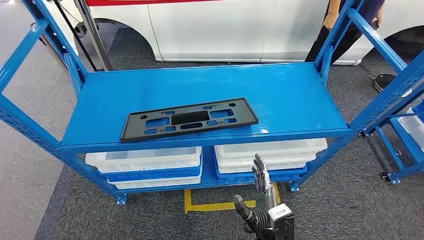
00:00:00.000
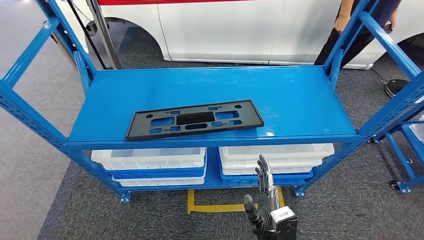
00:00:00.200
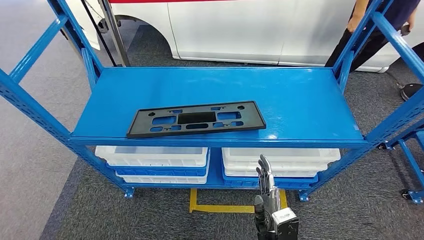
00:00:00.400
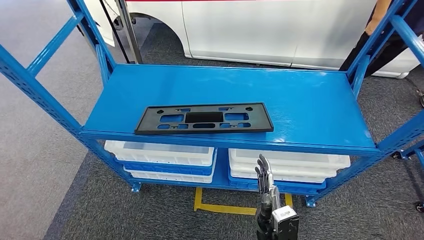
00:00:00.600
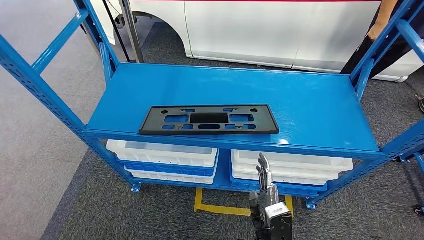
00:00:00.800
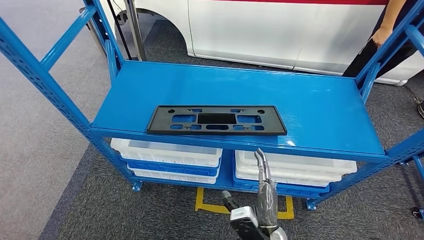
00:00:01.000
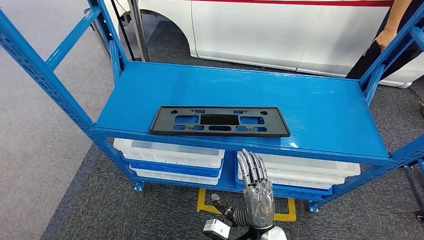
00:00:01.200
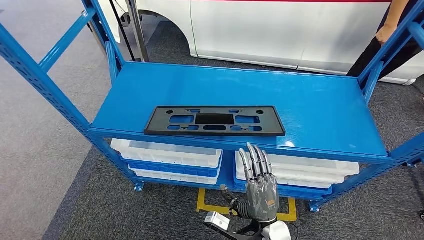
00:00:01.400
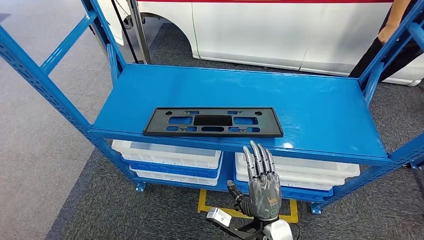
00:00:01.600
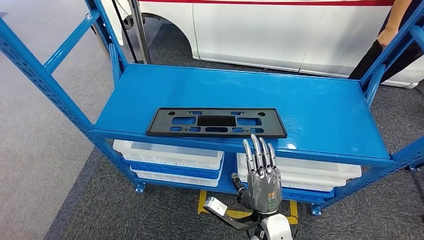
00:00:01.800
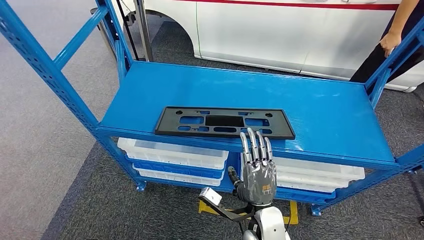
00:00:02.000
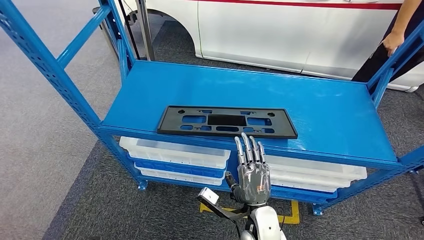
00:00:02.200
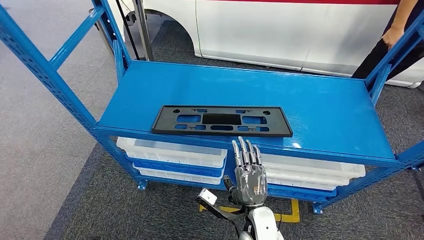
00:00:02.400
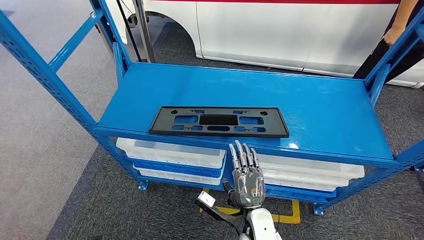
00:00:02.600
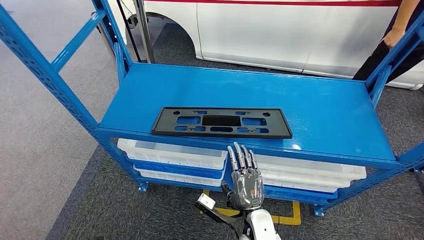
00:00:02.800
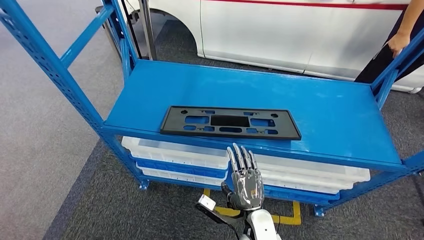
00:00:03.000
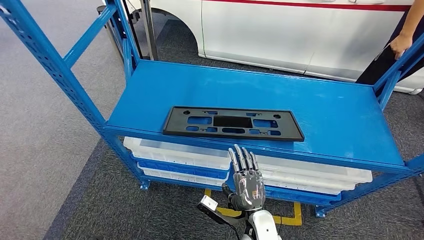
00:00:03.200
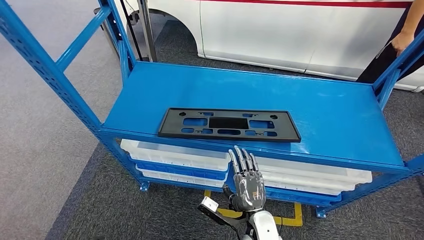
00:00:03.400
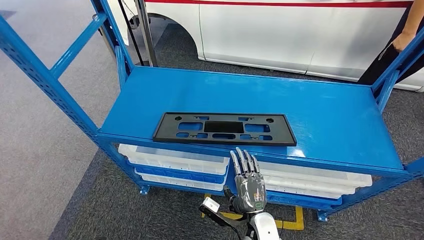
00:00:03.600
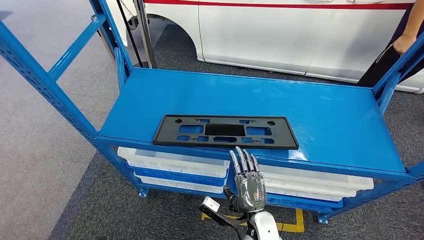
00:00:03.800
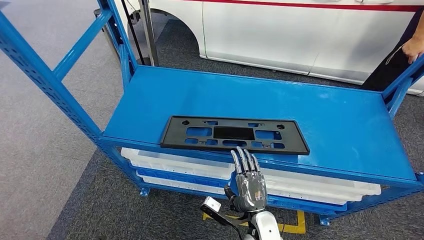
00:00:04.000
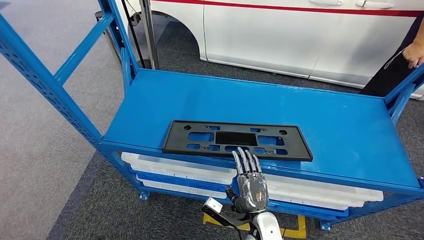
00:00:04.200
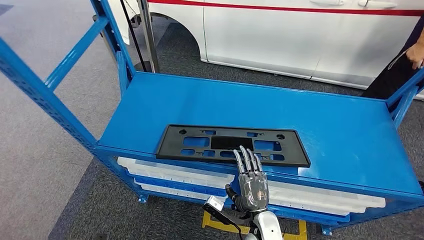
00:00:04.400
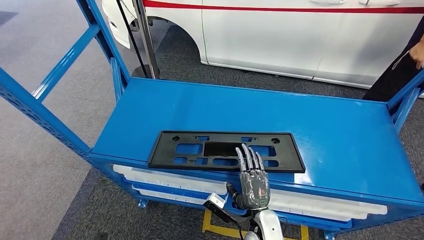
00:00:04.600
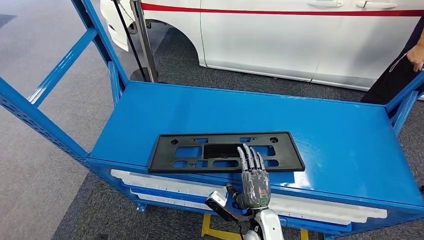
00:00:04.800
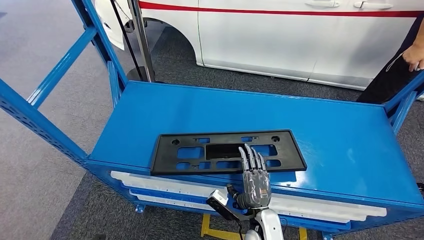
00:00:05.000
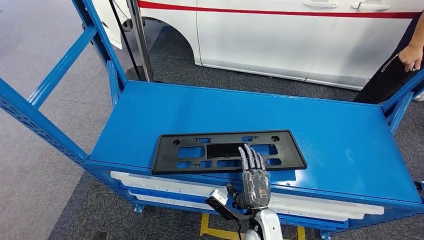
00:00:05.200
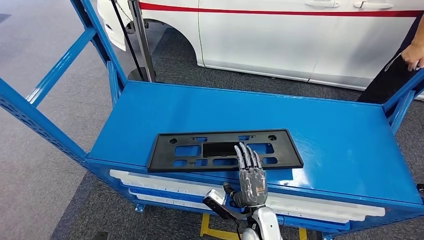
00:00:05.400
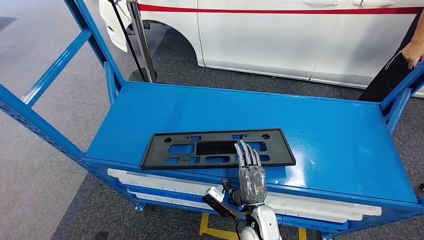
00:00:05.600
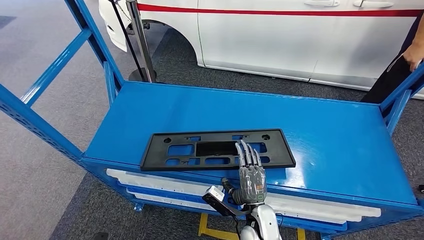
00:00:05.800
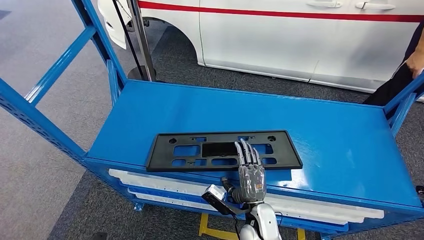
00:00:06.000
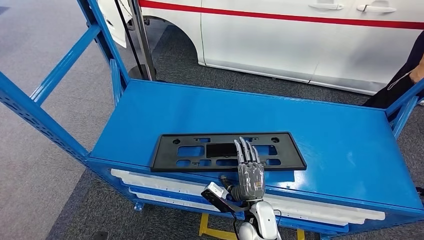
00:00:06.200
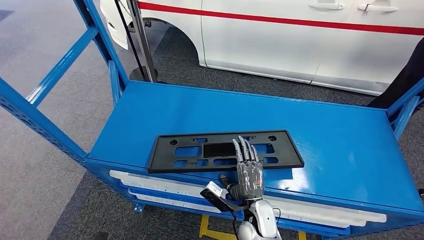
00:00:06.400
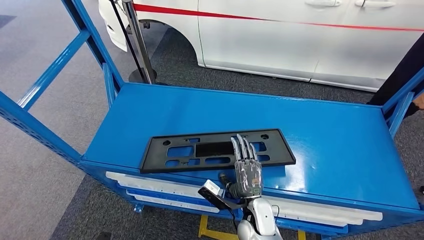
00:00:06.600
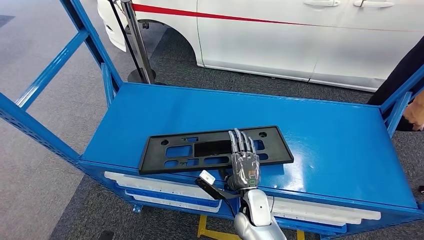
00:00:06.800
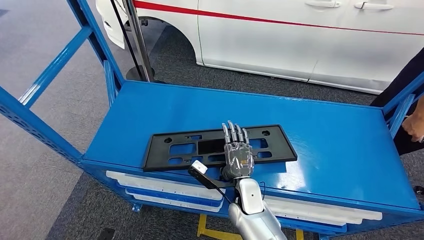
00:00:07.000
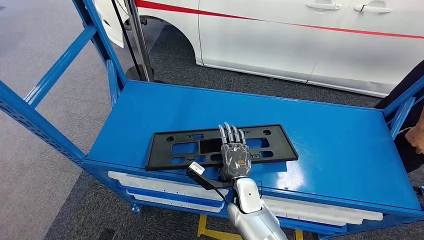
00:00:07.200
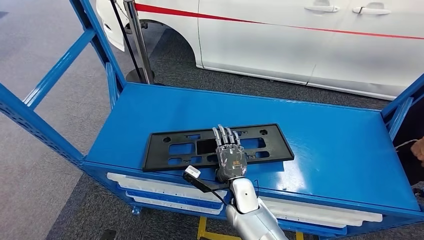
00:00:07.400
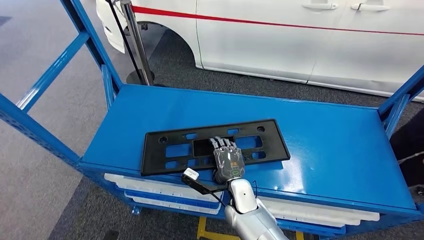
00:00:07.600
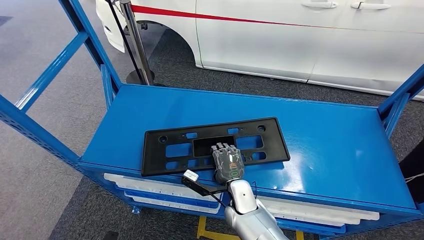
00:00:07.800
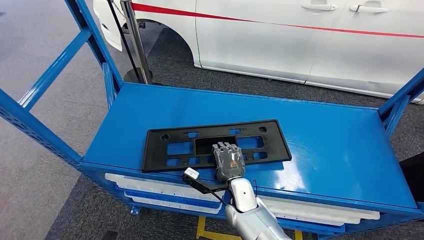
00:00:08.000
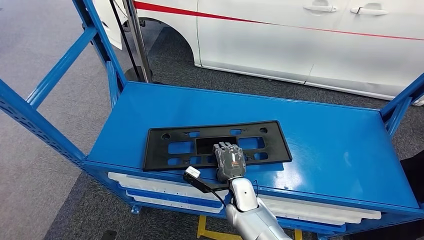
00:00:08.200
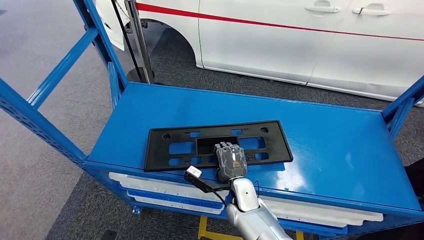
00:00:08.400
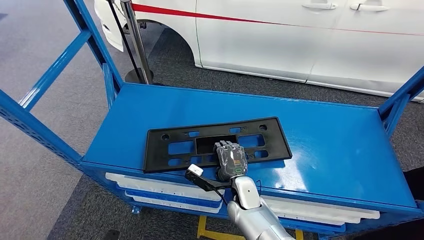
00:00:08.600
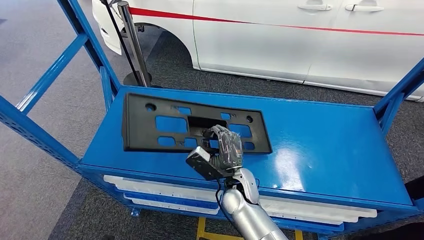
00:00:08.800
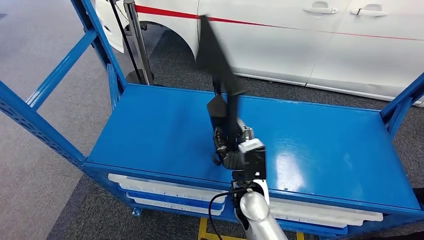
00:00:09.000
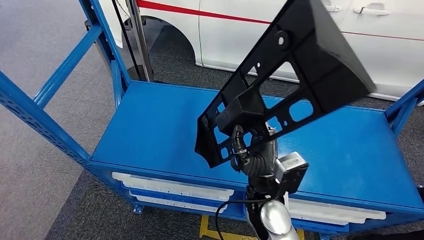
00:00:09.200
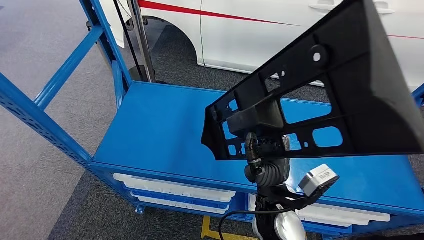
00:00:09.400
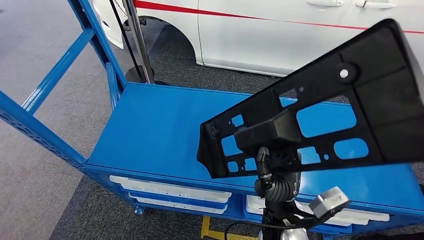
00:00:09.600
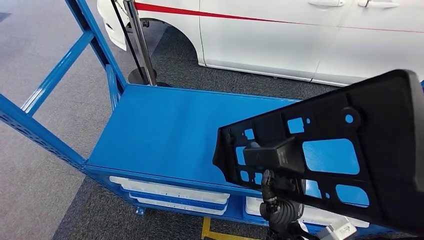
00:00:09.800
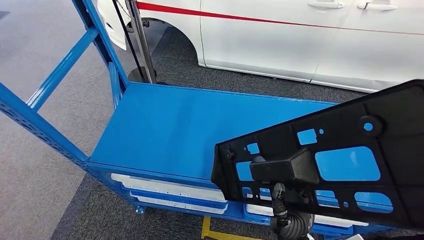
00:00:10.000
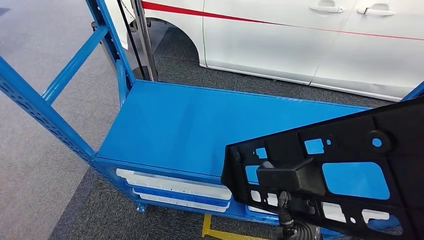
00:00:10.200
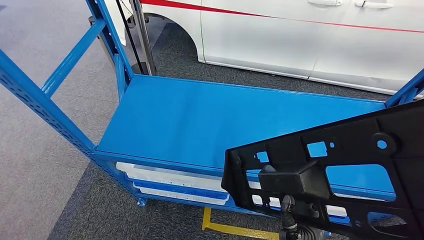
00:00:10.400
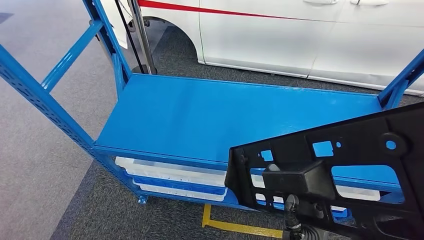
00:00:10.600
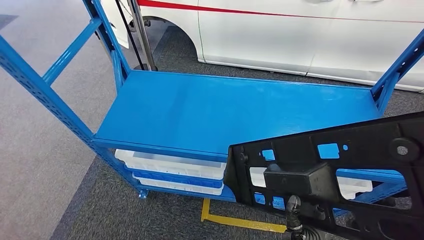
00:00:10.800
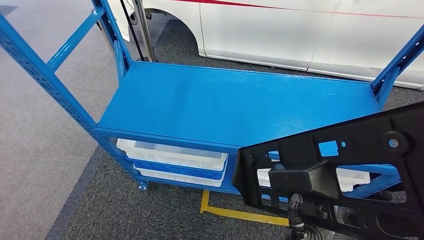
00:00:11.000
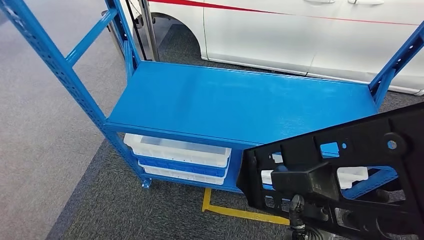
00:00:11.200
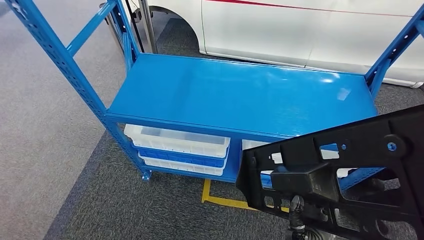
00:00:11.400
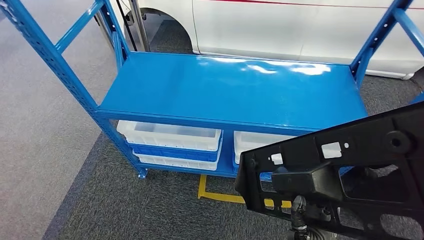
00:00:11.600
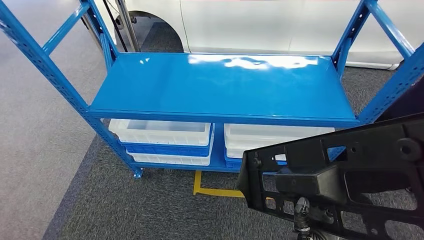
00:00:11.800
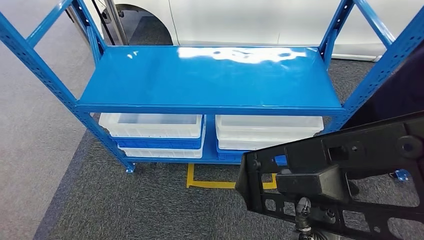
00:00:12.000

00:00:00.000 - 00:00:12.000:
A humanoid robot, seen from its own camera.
Step, 00:00:00.000 - 00:00:10.000: Pick up the large material from the shelf.

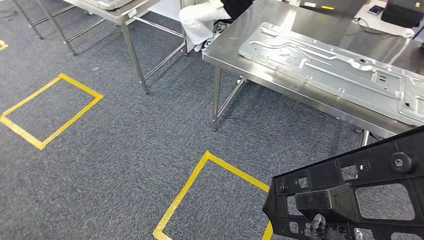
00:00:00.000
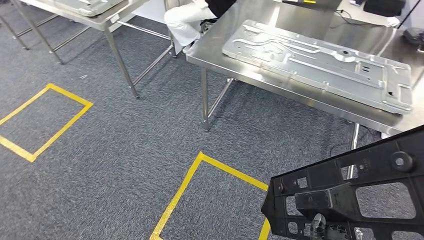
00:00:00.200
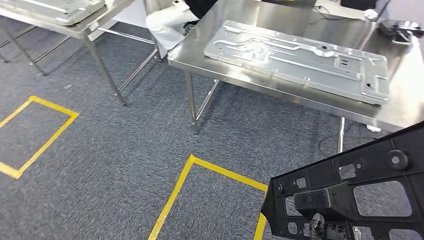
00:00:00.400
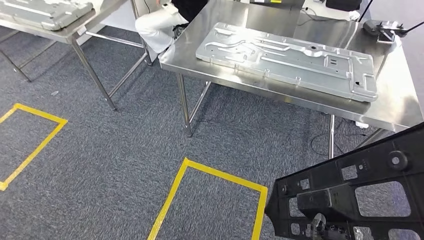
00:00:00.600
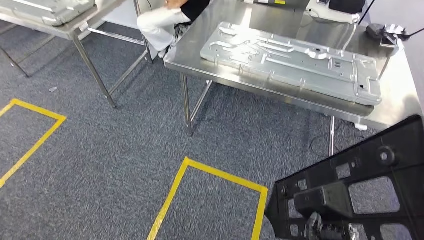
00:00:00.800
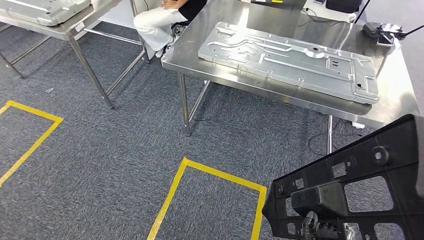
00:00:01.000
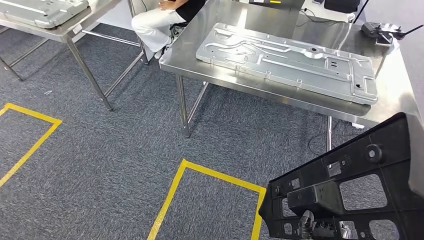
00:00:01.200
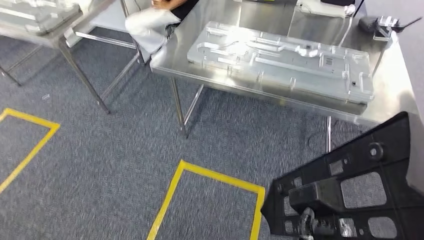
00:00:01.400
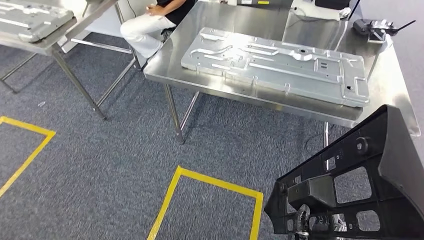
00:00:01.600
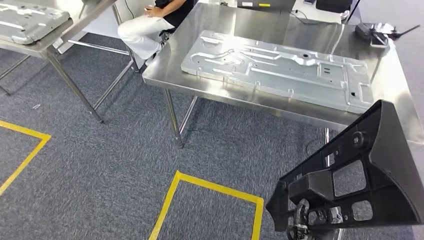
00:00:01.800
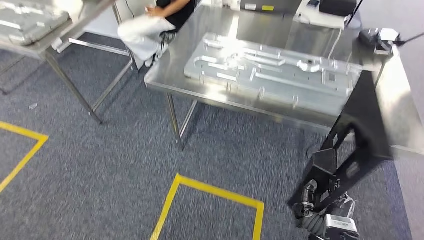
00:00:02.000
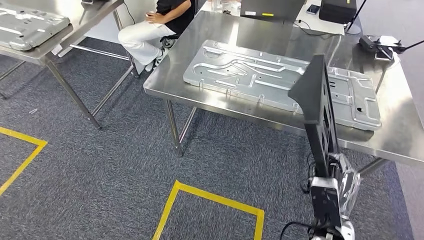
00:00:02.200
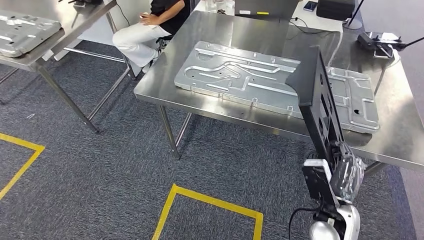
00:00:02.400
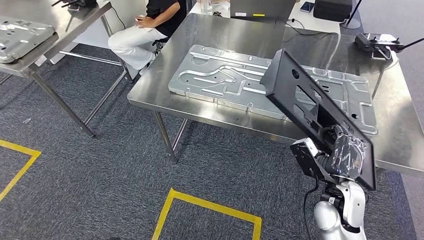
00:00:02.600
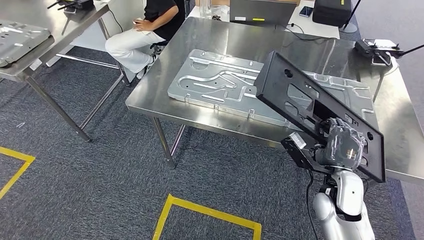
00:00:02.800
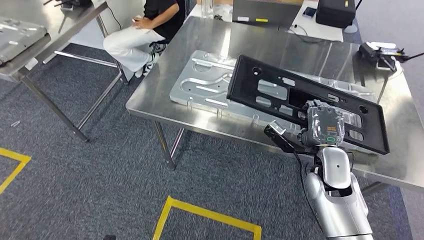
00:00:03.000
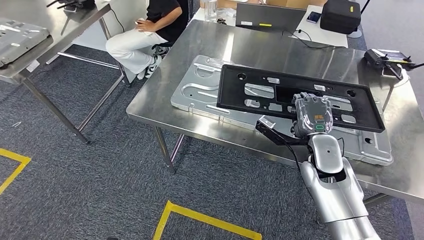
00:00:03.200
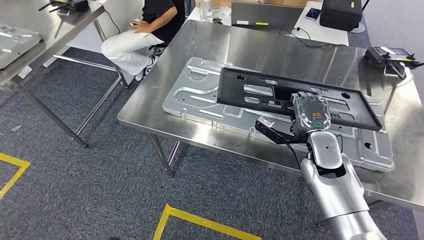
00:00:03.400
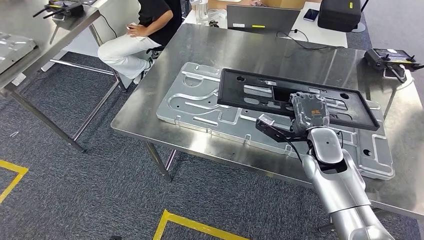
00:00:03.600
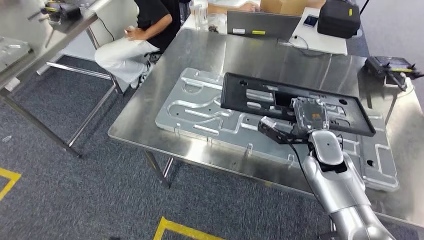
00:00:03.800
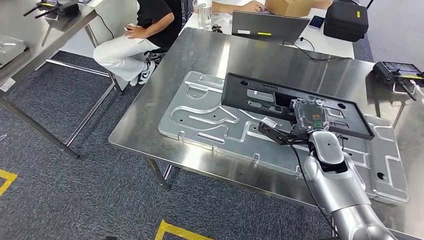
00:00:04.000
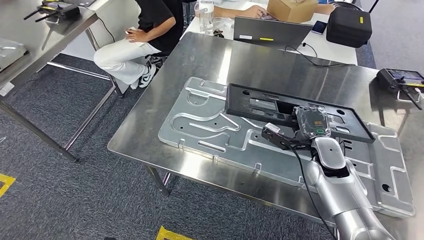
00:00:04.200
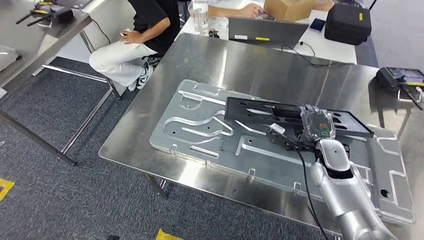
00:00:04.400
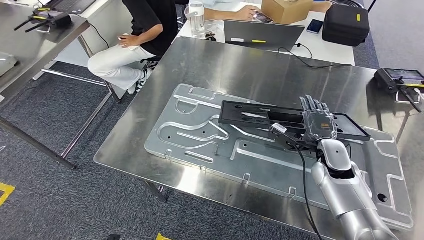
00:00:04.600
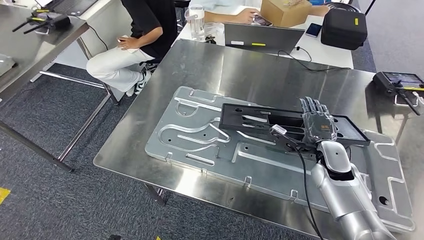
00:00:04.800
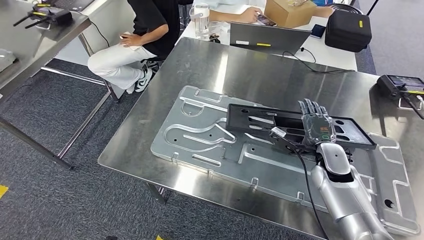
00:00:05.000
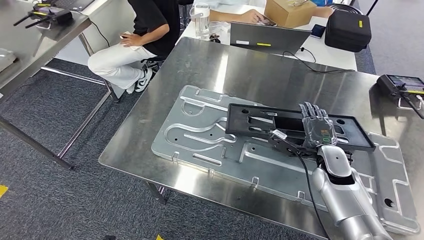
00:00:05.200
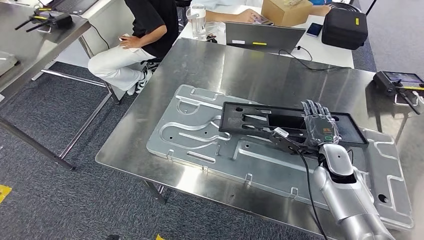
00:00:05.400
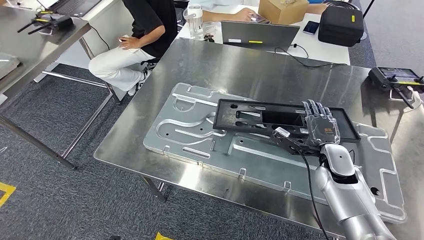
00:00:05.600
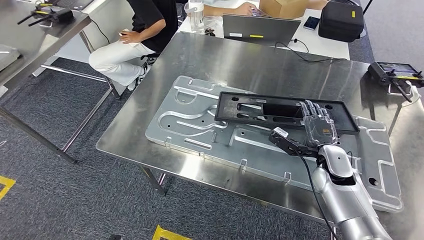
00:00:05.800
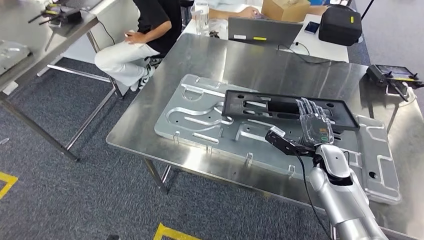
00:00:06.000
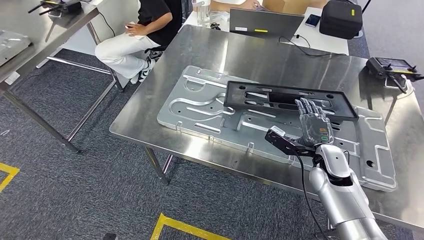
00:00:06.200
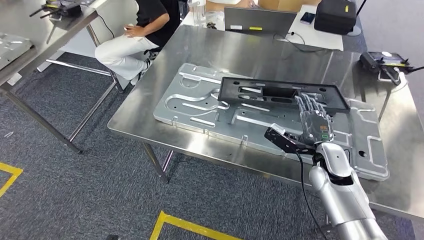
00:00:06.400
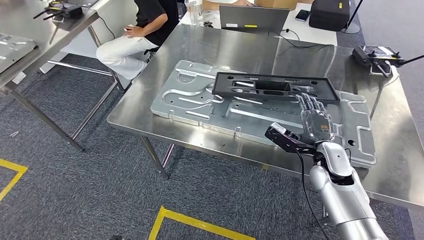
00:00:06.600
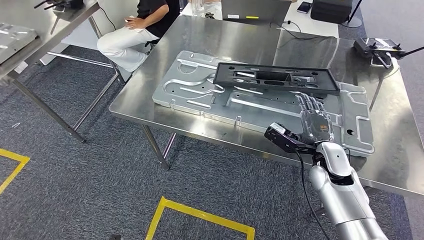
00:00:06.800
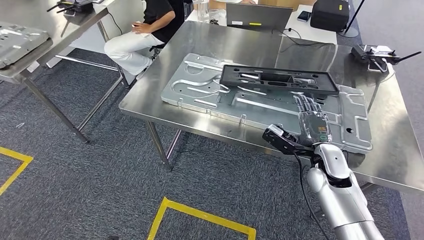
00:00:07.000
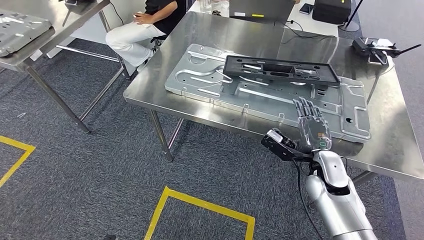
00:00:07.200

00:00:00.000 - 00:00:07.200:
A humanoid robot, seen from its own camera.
Step, 00:00:00.000 - 00:00:03.800: Move the large material to the workbench.
